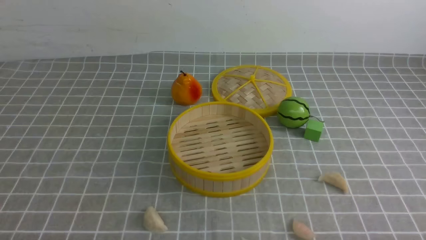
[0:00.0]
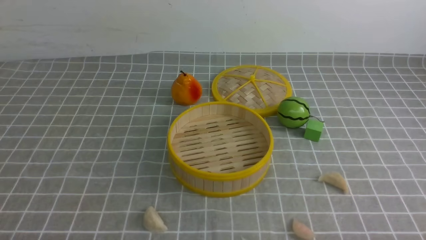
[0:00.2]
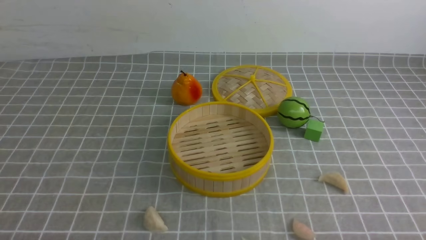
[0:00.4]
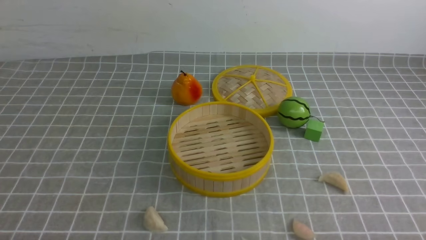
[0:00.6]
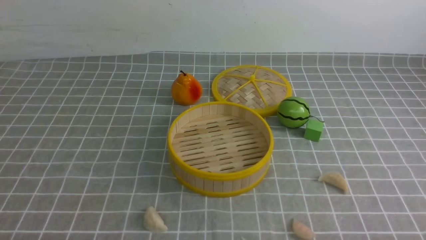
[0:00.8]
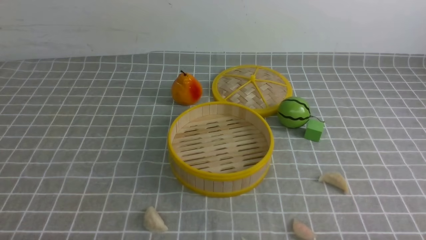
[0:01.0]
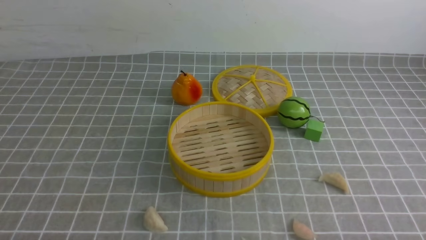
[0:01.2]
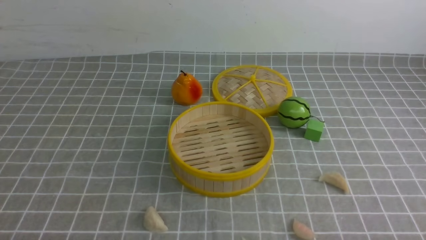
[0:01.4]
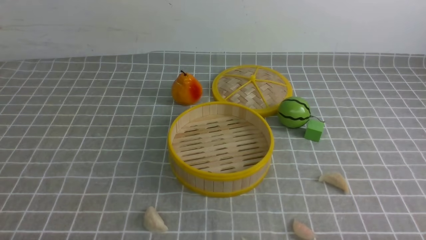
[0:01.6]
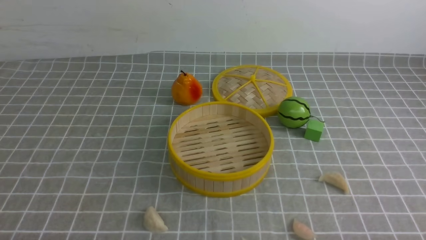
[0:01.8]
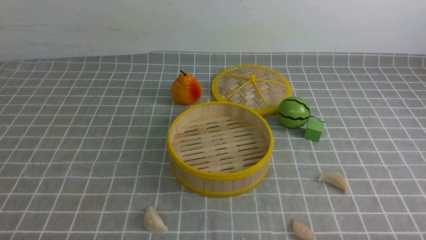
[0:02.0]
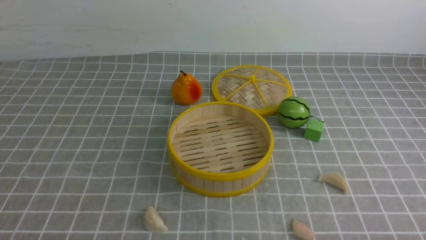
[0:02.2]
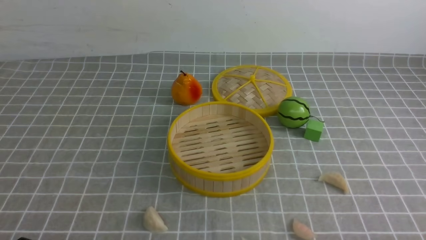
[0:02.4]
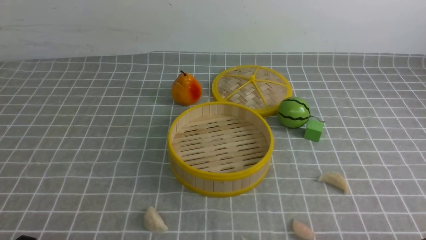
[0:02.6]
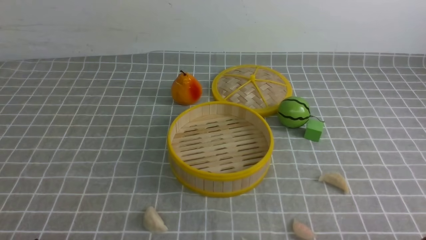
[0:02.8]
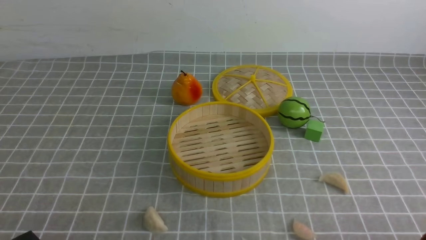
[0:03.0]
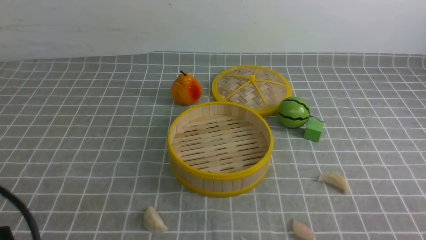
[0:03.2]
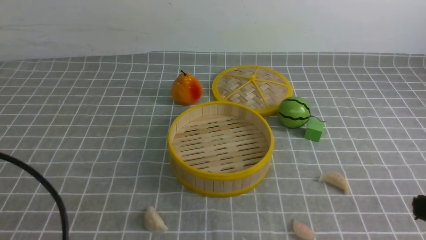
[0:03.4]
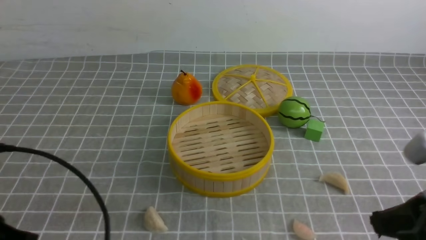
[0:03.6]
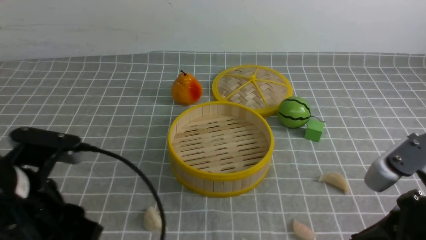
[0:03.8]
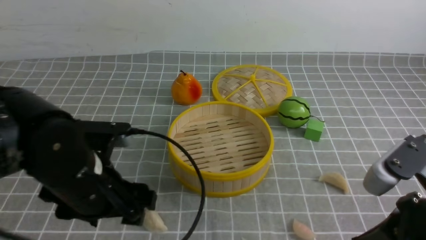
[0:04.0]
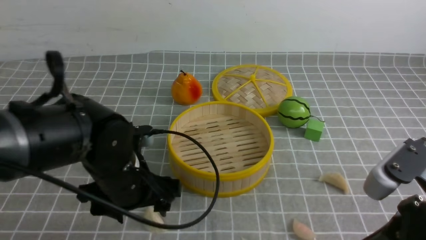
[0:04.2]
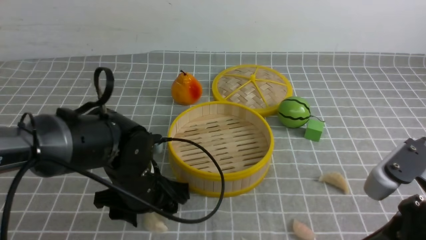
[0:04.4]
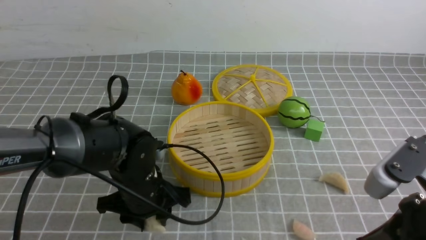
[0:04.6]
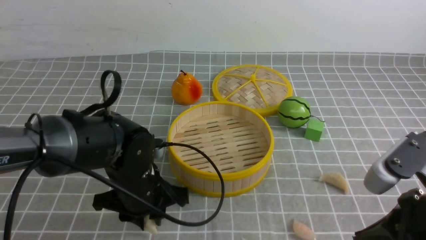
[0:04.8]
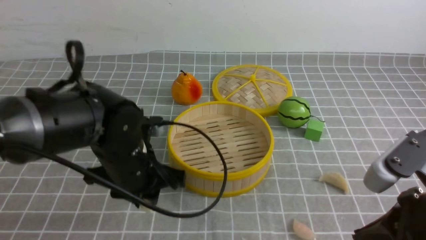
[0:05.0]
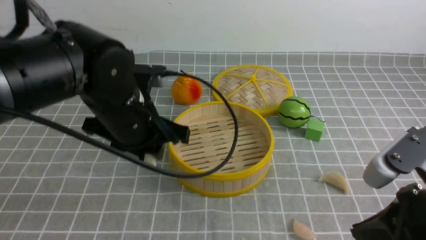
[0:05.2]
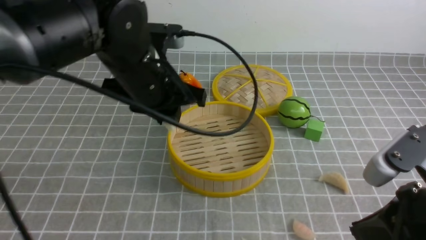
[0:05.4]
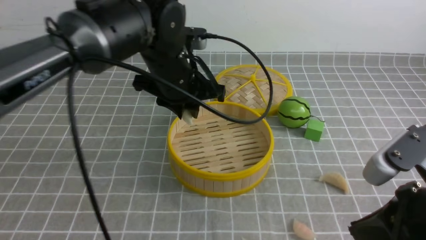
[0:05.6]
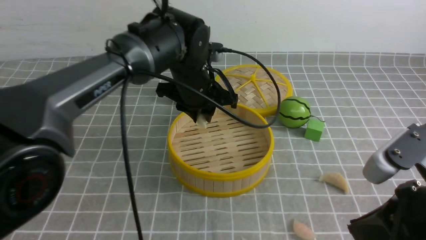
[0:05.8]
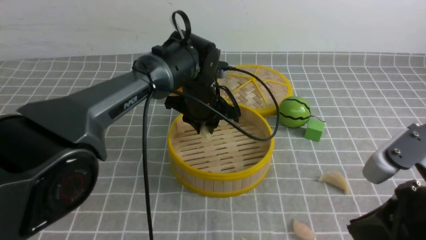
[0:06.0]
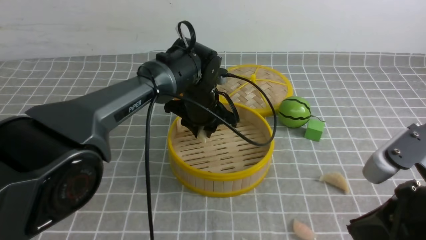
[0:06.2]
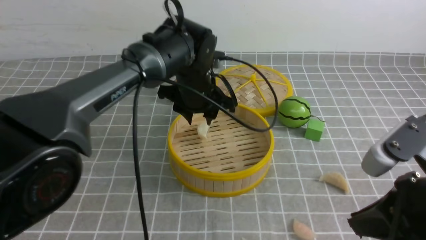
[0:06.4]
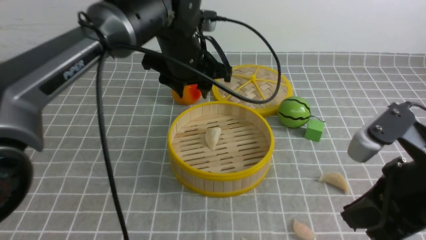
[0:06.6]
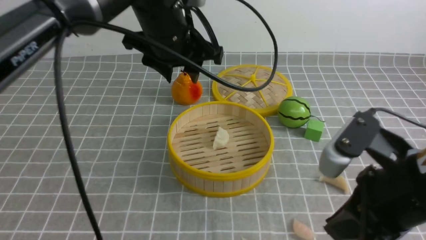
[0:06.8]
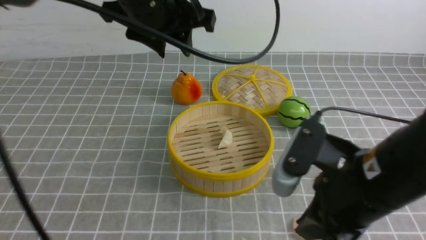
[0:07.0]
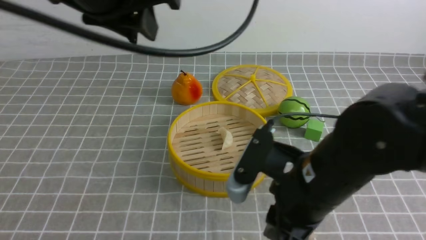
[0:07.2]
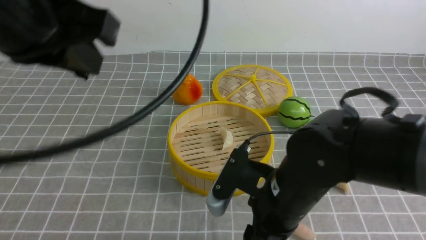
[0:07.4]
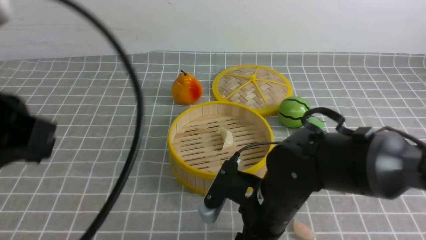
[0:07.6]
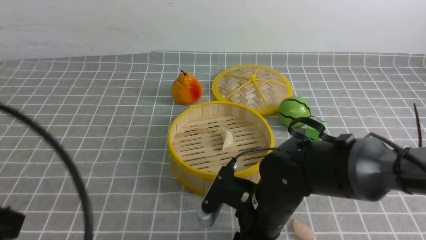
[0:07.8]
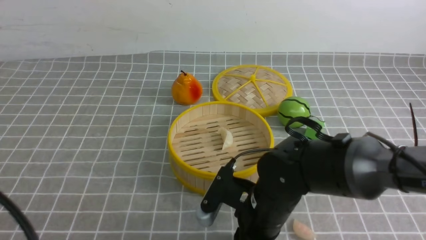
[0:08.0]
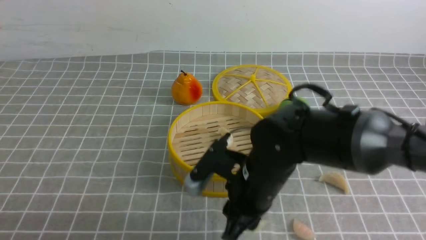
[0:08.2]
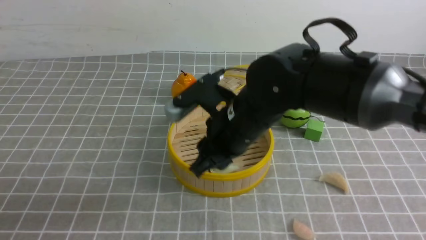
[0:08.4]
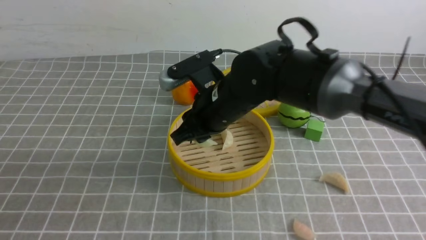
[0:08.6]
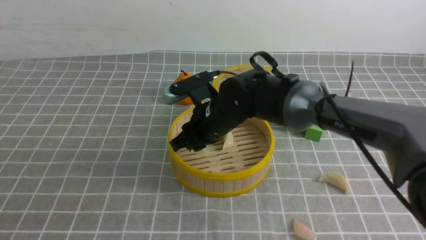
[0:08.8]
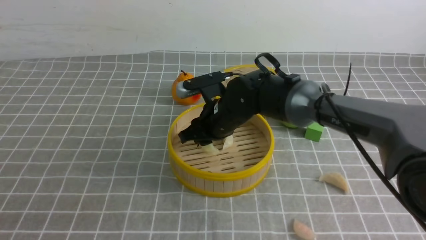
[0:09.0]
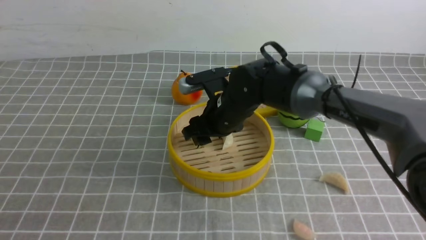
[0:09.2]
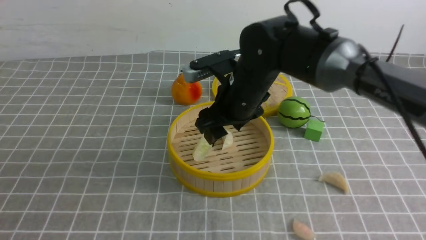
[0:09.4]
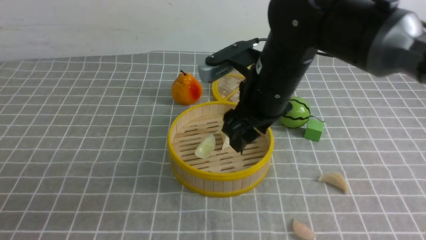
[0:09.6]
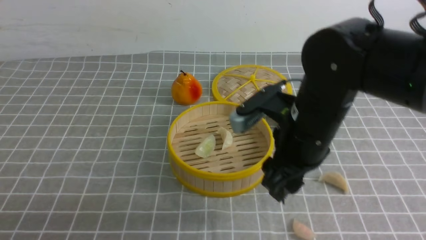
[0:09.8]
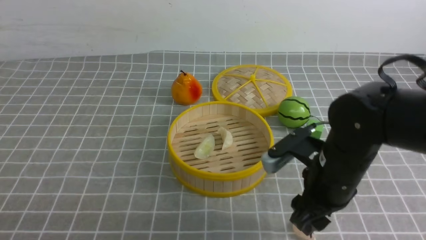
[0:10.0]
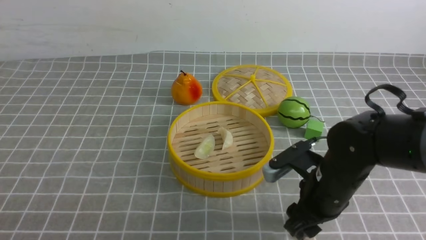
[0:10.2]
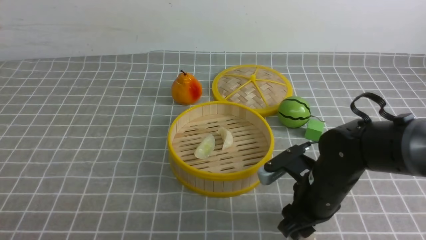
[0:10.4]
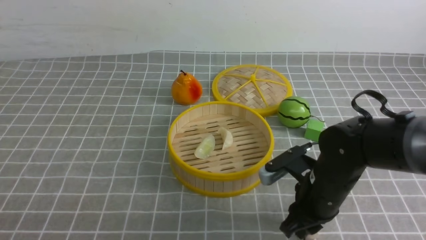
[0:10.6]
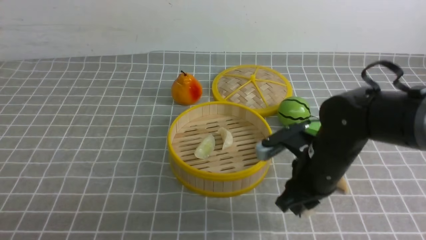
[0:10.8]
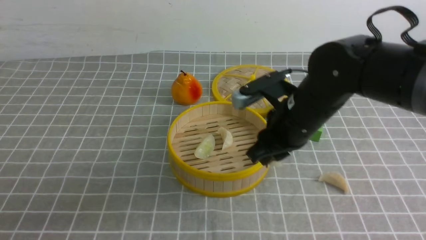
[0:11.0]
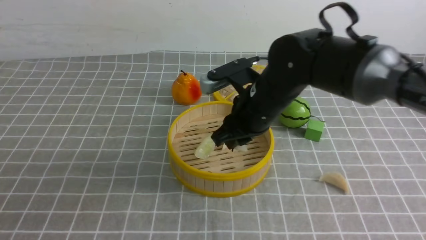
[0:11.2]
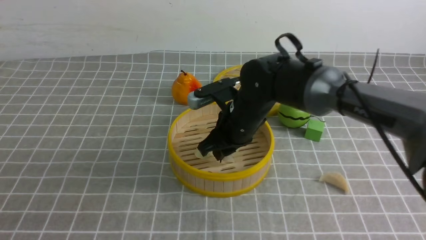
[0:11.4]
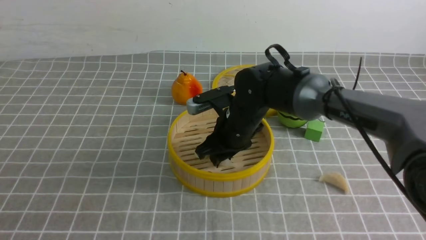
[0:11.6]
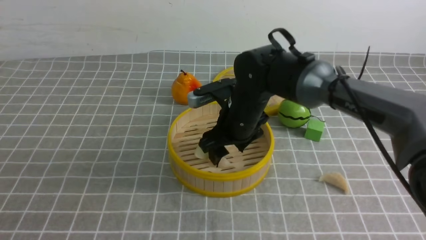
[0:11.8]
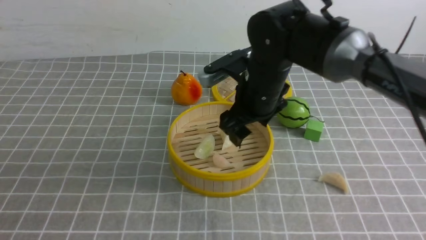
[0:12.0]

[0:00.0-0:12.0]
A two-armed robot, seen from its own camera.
Task of the whole recording: put the dumplings into the steamer on the table with the grey tablecloth.
Step, 0:00.0 to 0:04.8: use the left arm to grab a dumpling.
Step, 0:05.0 to 0:06.4: use the left arm to put the dumpling into the steamer.
Step, 0:06.6 to 0:08.2: use the right arm to grab a dumpling.
Step, 0:08.4 to 0:09.2: use the right arm to put the dumpling into the steamer.
Step, 0:09.4 to 0:10.6: use the right arm to grab a dumpling.
Step, 0:10.8 to 0:11.8: use the right arm to put the dumpling into the steamer.
0:00.0 to 0:01.6: The two grippers keep their place.
0:03.0 to 0:04.4: The right gripper travels forward, upward and to the left by some 15 cm; the left gripper heads forward and to the right, covering some 25 cm, and opens up.
0:04.4 to 0:06.0: The left gripper shifts approximately 20 cm forward and to the right, and closes.
0:06.0 to 0:07.6: The left gripper is displaced backward, upward and to the left by approximately 40 cm; the right gripper is displaced to the left, downward and forward by some 20 cm, and opens its fingers.
0:07.6 to 0:09.0: The right gripper travels forward by approximately 15 cm. Meanwhile the left gripper heads backward and downward, covering about 10 cm.
0:09.0 to 0:10.4: The right gripper moves to the right and backward, some 20 cm.
0:10.4 to 0:12.0: The right gripper travels upward, forward and to the left by about 15 cm.

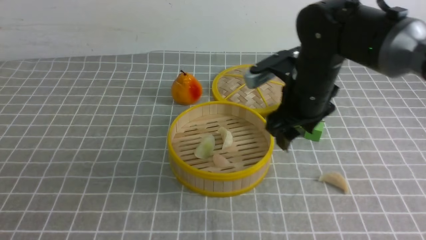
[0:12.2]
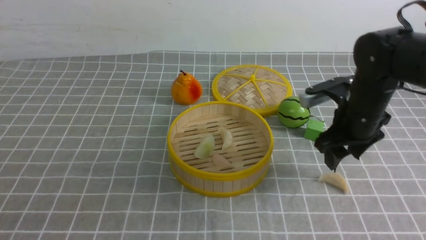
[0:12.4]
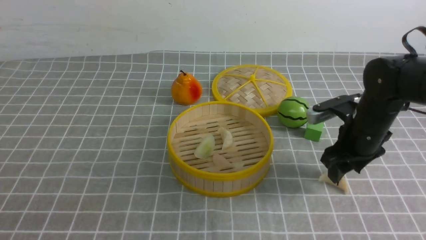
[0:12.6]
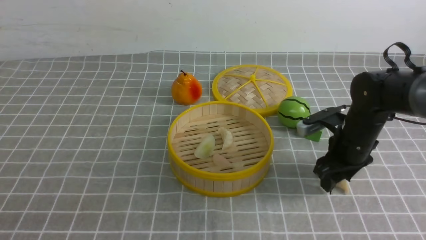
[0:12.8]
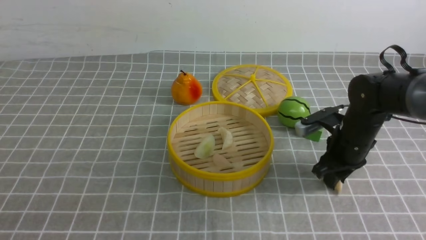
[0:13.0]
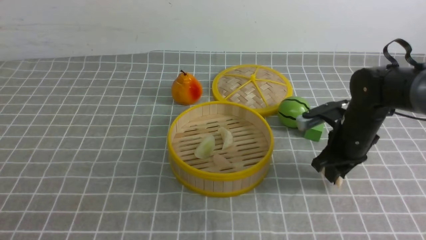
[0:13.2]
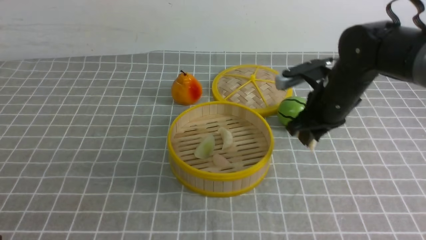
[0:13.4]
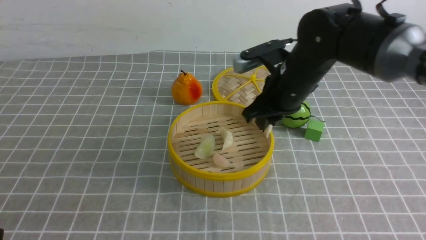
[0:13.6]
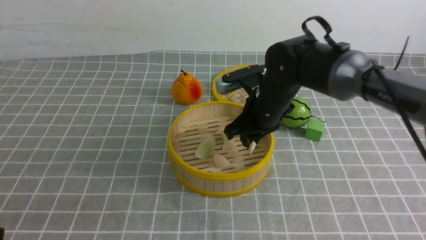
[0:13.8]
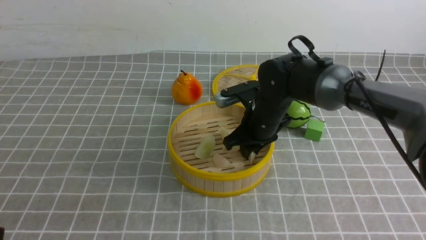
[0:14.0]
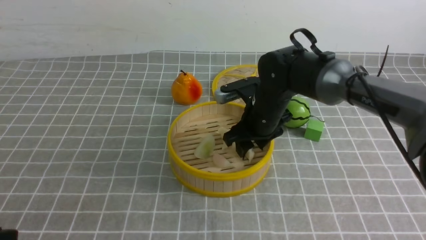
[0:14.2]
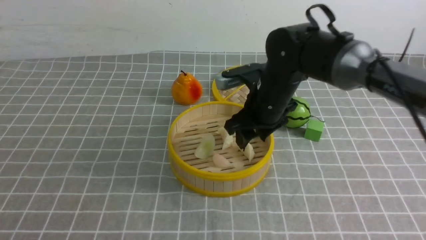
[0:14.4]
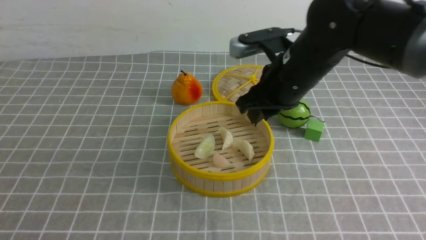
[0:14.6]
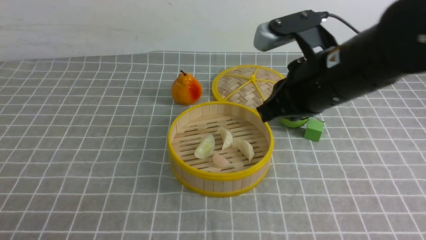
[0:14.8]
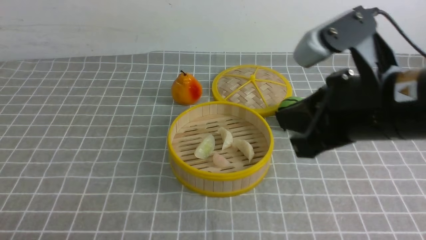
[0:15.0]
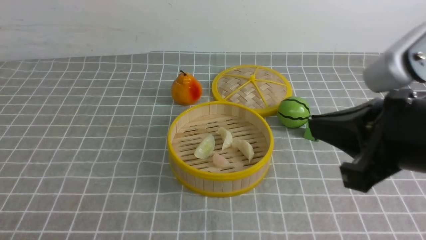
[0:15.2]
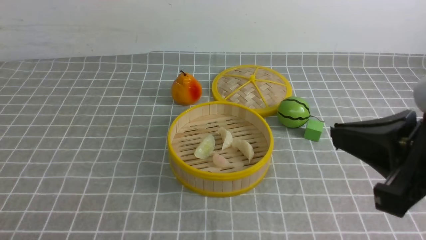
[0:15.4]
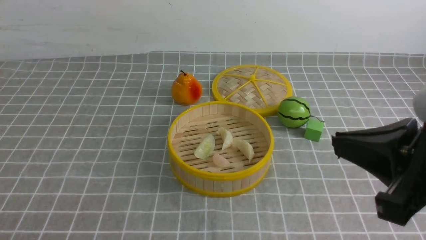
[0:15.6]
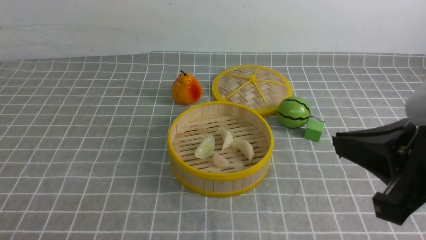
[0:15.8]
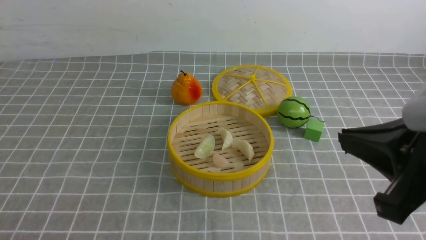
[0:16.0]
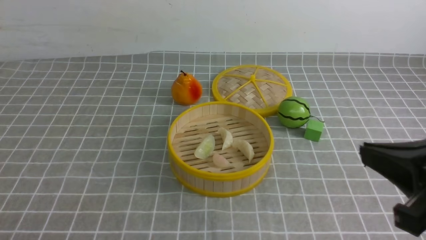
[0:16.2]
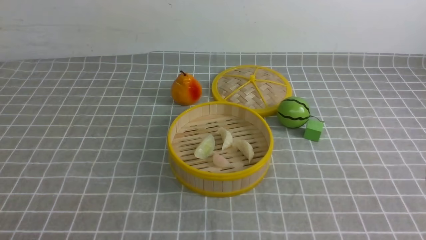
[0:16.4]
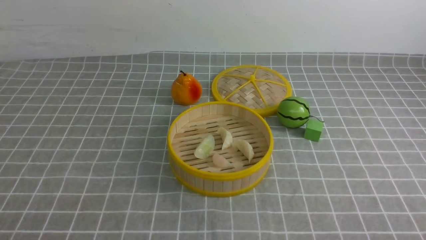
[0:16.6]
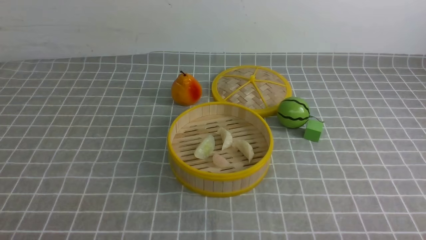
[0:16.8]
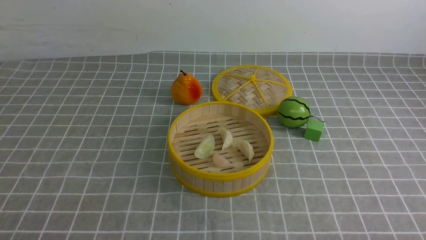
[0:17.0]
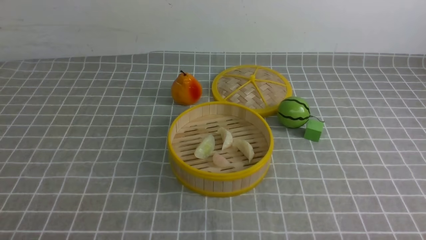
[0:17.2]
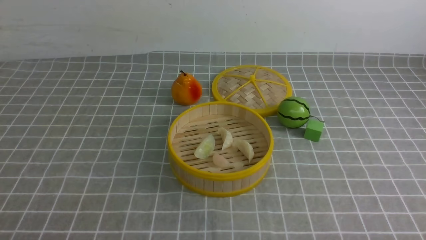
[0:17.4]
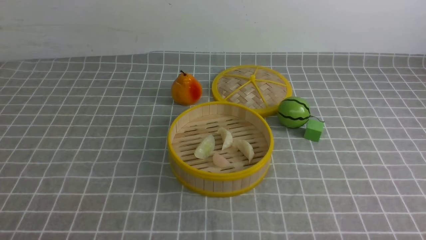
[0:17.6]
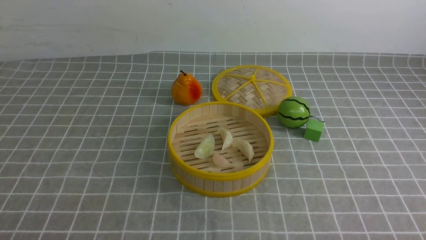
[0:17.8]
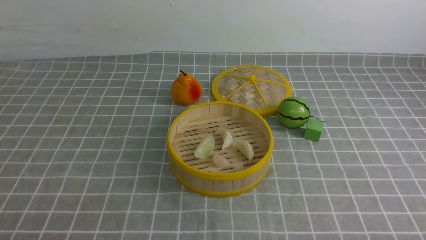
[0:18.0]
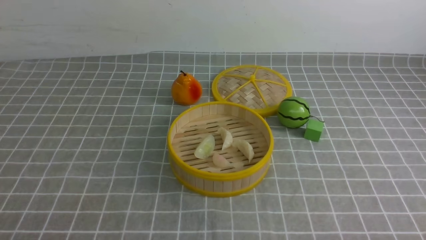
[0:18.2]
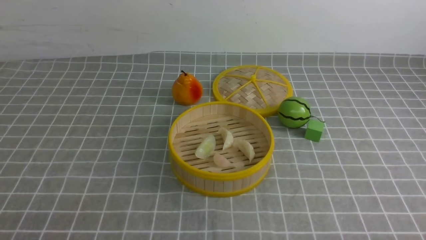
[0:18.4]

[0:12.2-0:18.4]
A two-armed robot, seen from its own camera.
Task of the whole recording: put the dumplings into the steamer on the table with the grey tablecloth.
Step, 0:12.2 to 0:13.0: use the right arm to grab a dumpling.
Step, 0:13.2 to 0:14.4: use the right arm to put the dumpling into the steamer.
0:12.2 to 0:13.8: The right gripper heads to the left, covering approximately 5 cm, and closes its fingers.
0:13.8 to 0:15.4: The right gripper heads backward, upward and to the right, covering some 30 cm, and closes its fingers, while the left gripper travels downward by roughly 10 cm, and closes.
0:15.4 to 0:16.8: The right gripper travels downward, to the right and backward by some 20 cm.
